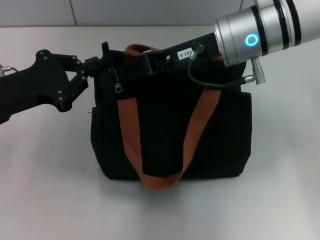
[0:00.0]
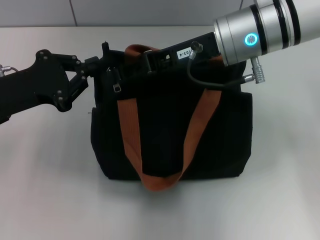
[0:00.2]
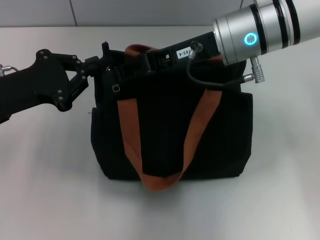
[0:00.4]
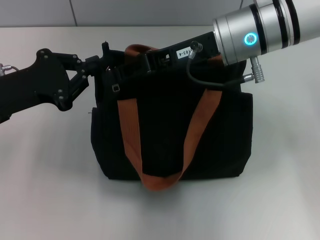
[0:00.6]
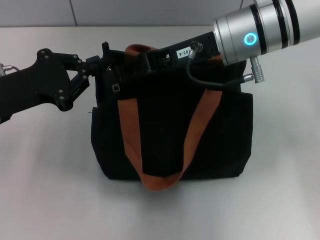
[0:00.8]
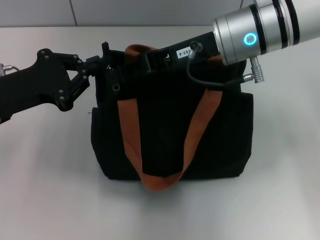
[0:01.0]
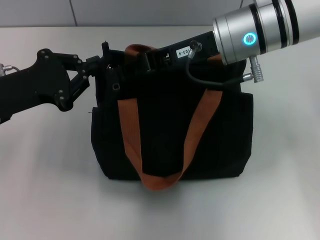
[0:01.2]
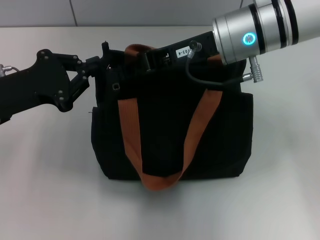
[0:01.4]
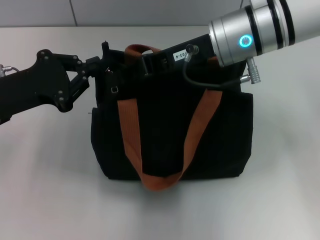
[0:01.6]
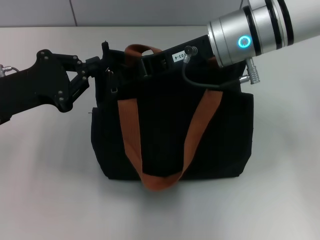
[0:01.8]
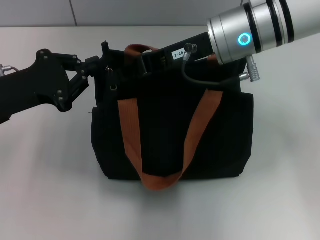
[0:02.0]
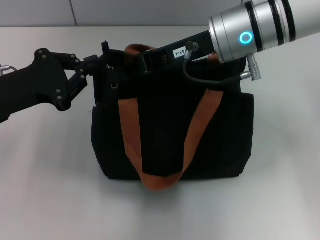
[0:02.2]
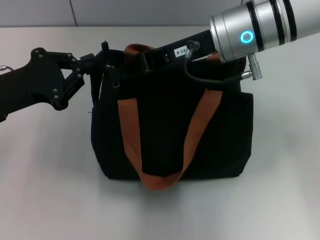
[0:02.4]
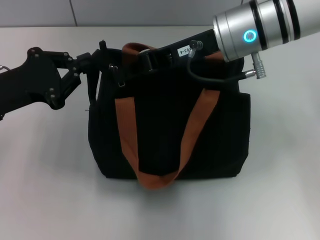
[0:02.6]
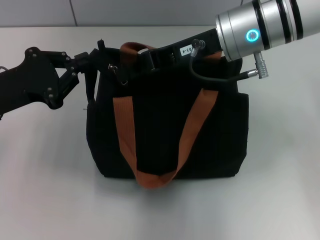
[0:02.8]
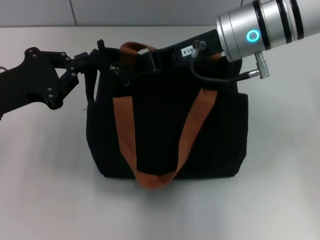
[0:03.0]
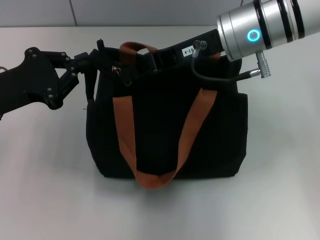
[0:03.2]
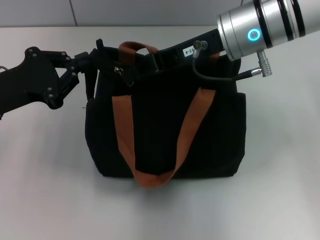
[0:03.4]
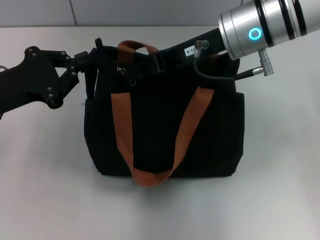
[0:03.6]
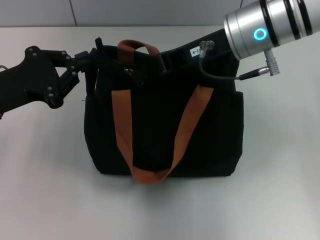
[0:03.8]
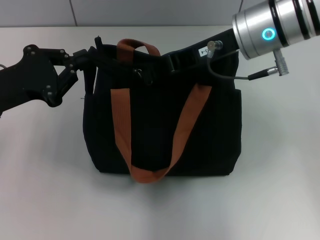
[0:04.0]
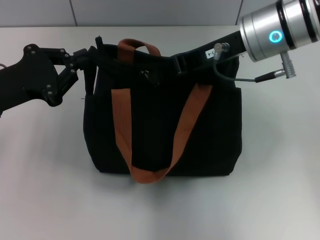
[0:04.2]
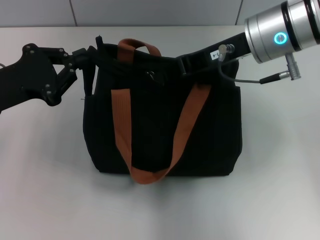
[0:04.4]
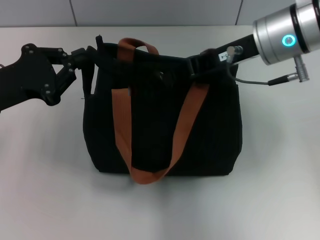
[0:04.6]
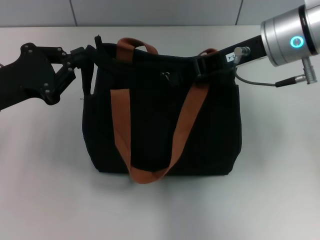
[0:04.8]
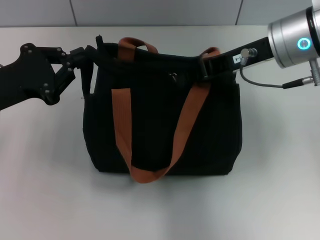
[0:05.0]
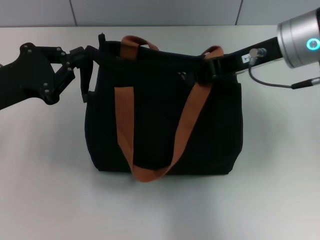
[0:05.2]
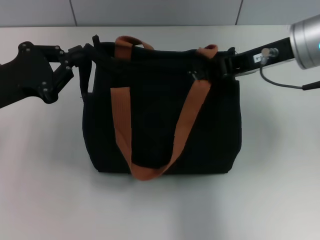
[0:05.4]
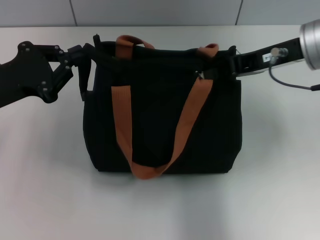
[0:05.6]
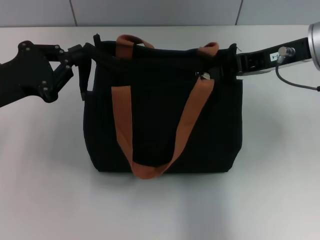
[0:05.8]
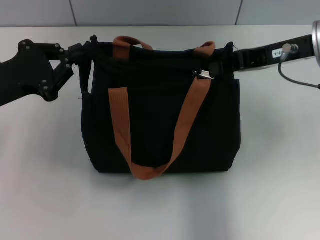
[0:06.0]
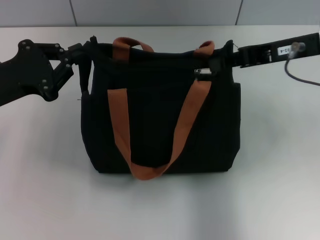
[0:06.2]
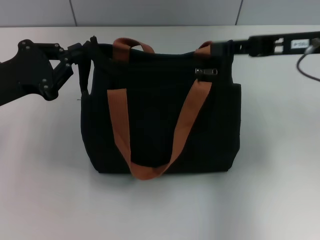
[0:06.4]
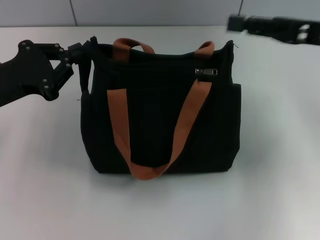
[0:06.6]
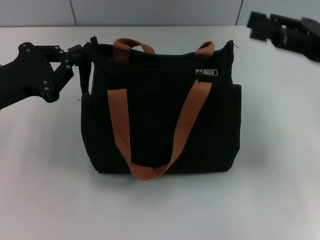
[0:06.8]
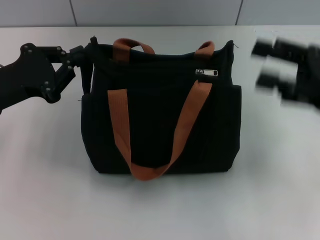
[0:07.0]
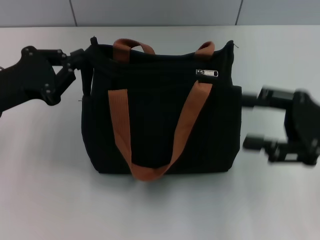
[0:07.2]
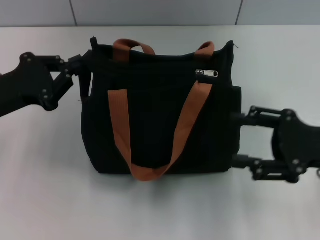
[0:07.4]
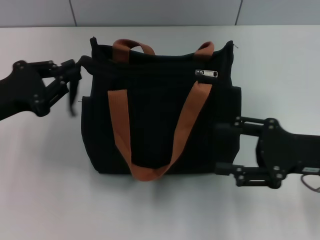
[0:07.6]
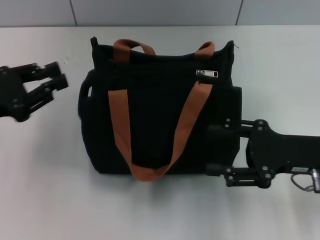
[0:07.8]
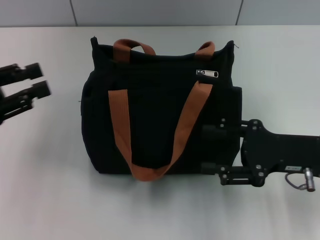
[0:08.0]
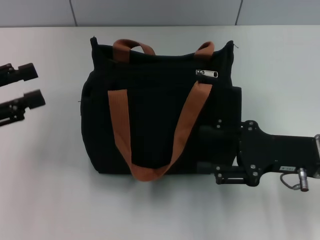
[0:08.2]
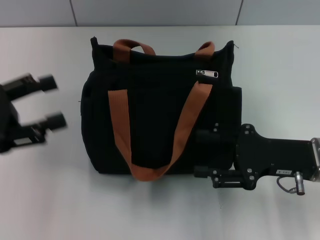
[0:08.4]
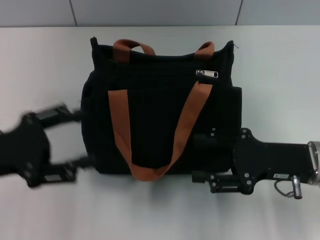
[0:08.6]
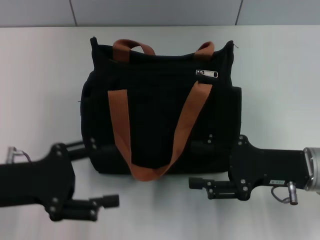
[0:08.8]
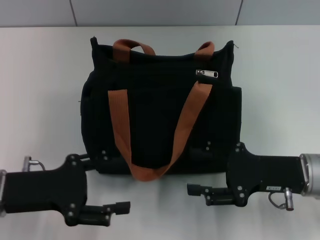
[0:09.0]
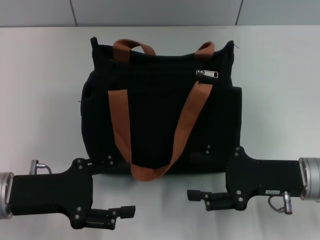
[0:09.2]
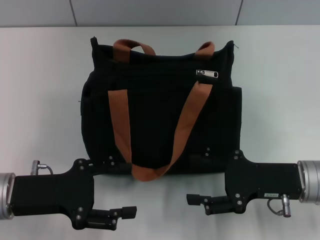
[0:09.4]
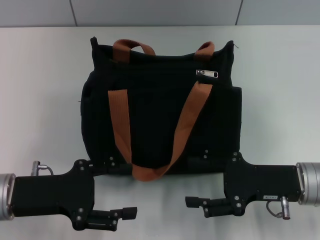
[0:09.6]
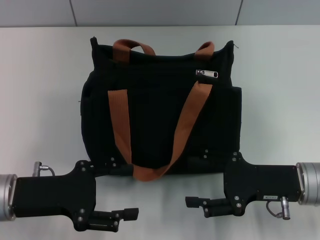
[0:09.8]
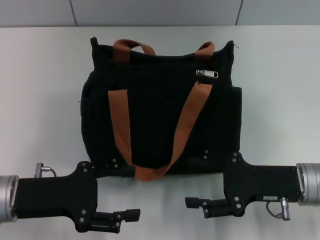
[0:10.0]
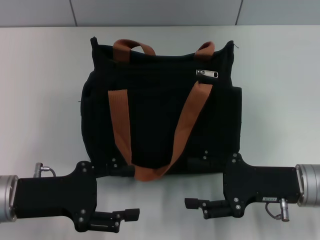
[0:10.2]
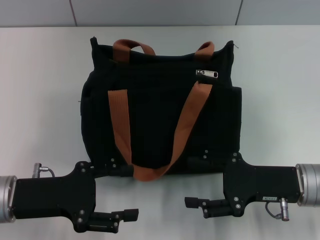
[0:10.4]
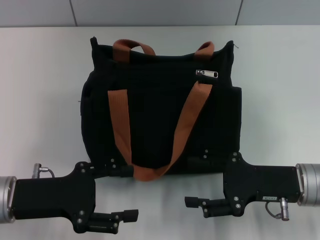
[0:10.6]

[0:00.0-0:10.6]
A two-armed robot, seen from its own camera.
Step, 0:00.0 to 0:06.0: Pull up the zipper with your right hand.
0:00.0 to 0:01.6: The right gripper closes up.
0:01.6 to 0:03.0: Neither gripper changes place.
0:03.0 to 0:04.6: The grippers stay close to where they were, moving slightly.
0:04.6 to 0:06.0: The right gripper is displaced to the right by about 5 cm.
0:06.0 to 0:07.6: The right gripper shifts roughly 15 cm downward and backward, and opens its fingers.
0:07.6 to 0:09.0: The left gripper moves backward, approximately 5 cm, and opens its fingers.
0:09.0 to 0:10.6: The grippers make only small movements.

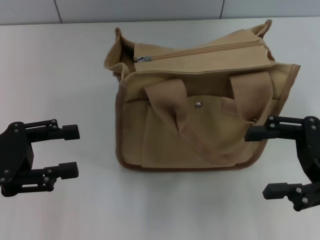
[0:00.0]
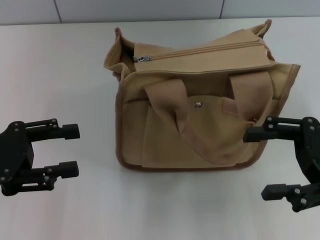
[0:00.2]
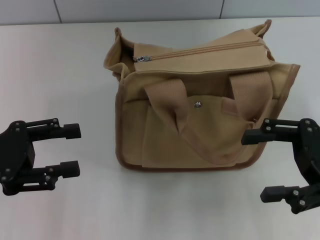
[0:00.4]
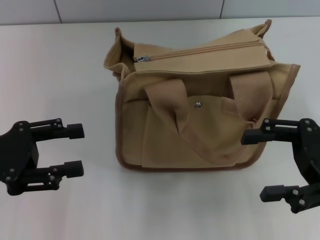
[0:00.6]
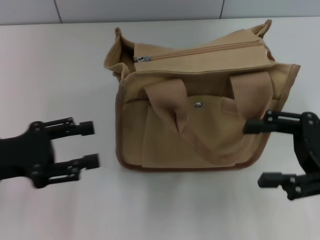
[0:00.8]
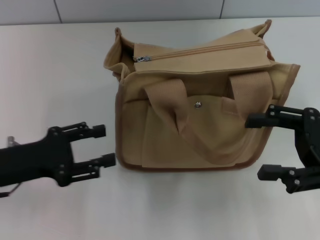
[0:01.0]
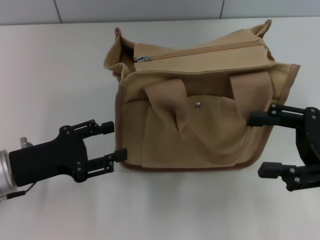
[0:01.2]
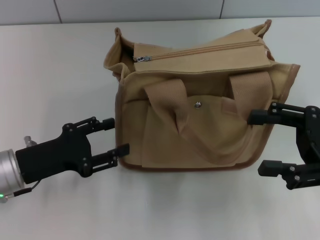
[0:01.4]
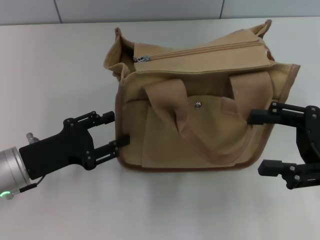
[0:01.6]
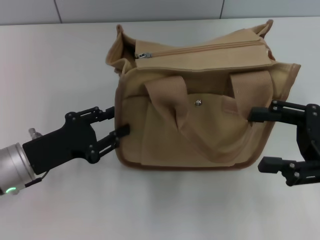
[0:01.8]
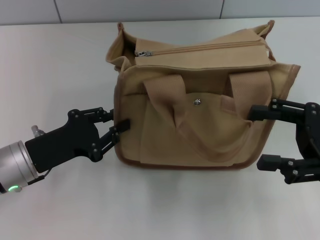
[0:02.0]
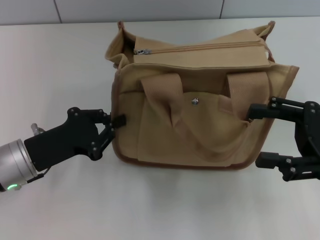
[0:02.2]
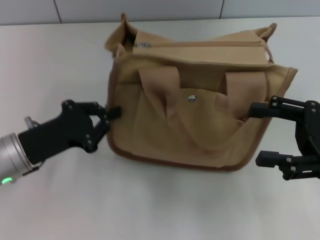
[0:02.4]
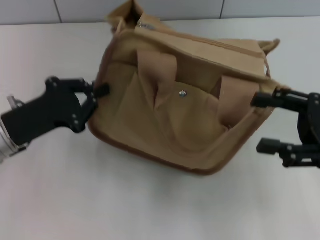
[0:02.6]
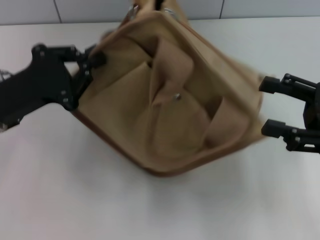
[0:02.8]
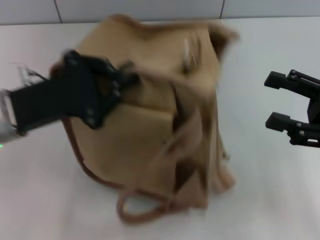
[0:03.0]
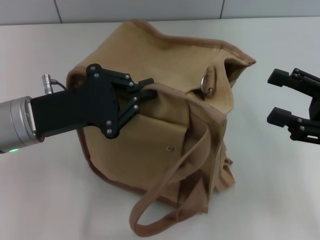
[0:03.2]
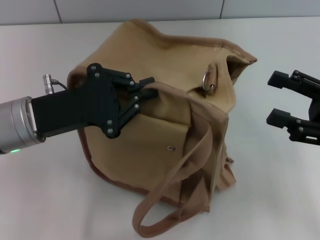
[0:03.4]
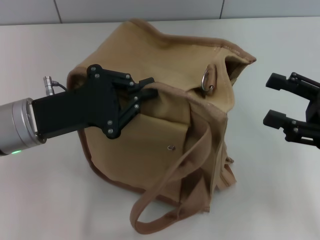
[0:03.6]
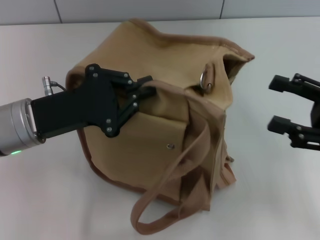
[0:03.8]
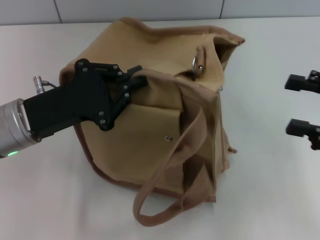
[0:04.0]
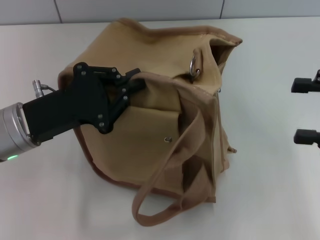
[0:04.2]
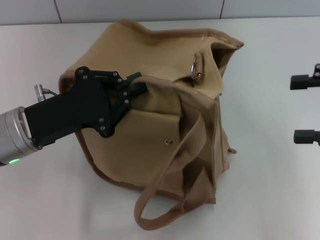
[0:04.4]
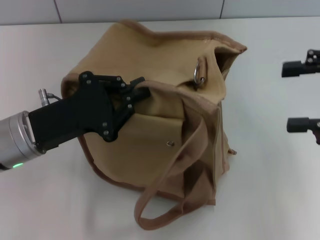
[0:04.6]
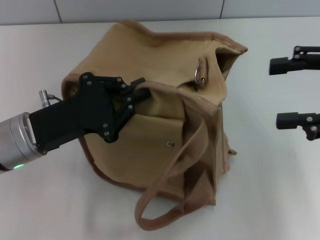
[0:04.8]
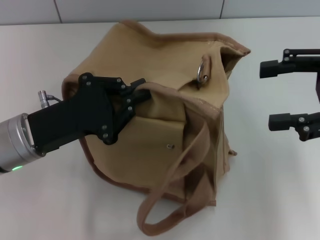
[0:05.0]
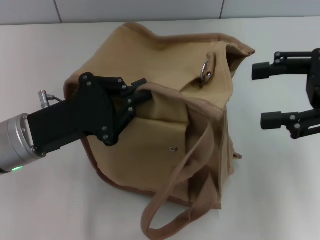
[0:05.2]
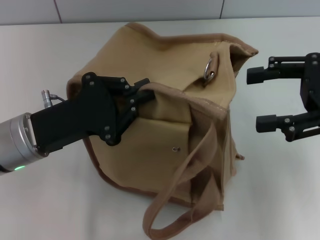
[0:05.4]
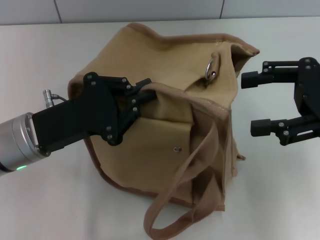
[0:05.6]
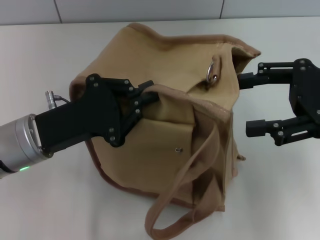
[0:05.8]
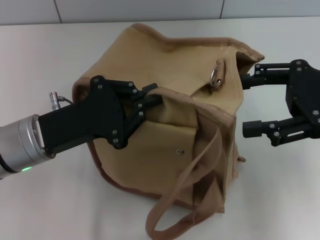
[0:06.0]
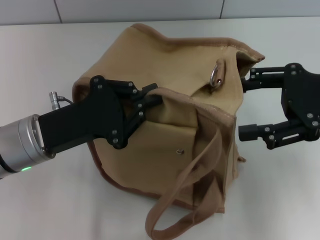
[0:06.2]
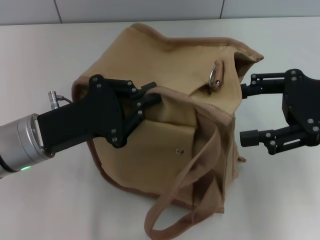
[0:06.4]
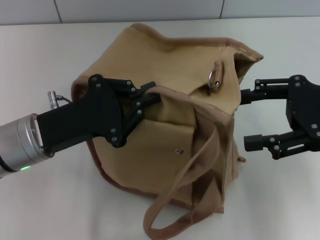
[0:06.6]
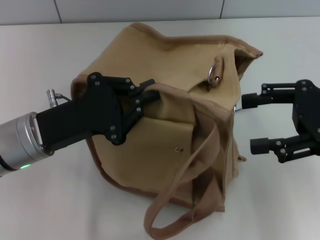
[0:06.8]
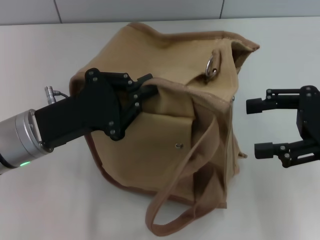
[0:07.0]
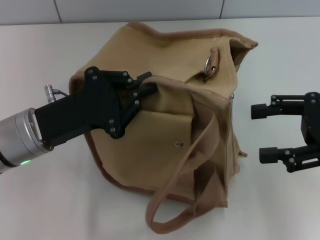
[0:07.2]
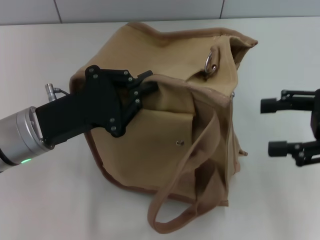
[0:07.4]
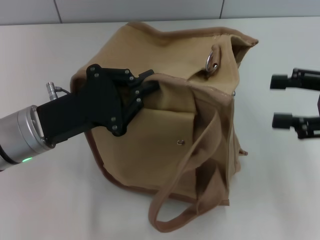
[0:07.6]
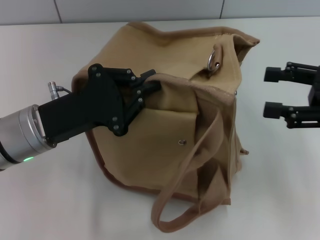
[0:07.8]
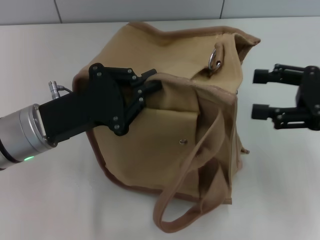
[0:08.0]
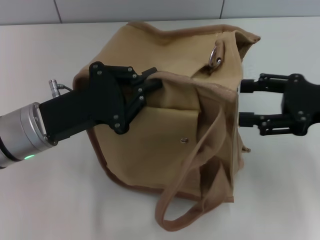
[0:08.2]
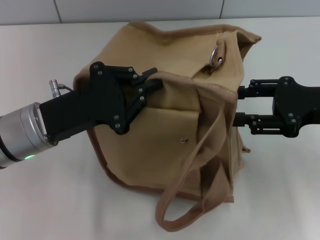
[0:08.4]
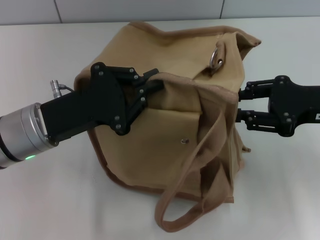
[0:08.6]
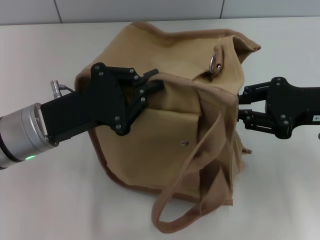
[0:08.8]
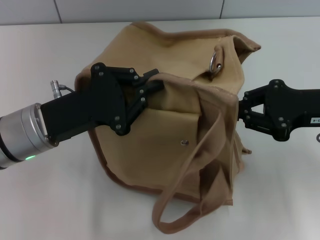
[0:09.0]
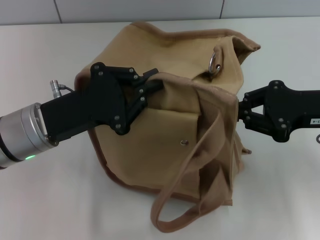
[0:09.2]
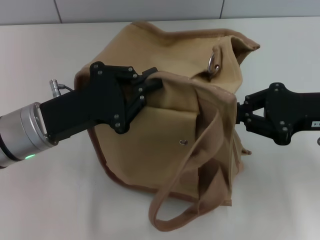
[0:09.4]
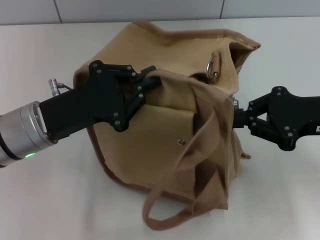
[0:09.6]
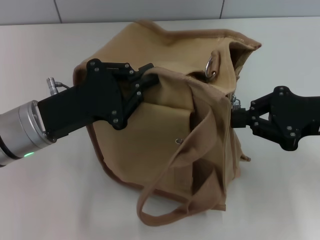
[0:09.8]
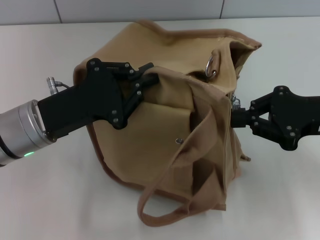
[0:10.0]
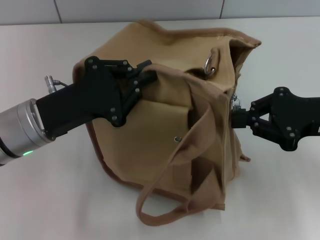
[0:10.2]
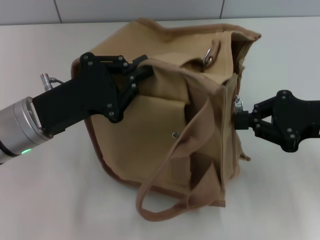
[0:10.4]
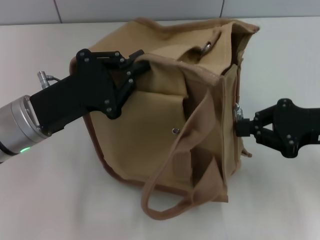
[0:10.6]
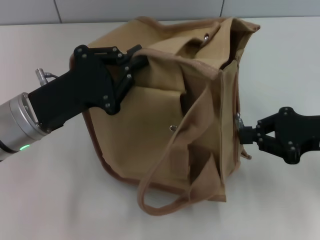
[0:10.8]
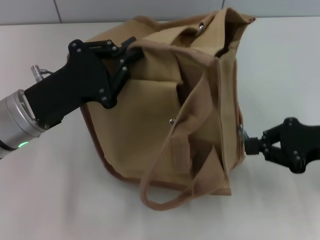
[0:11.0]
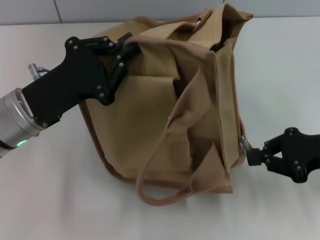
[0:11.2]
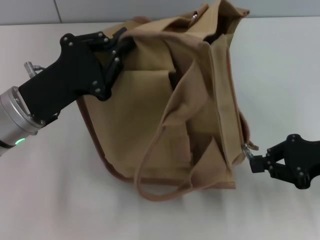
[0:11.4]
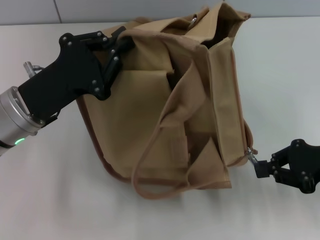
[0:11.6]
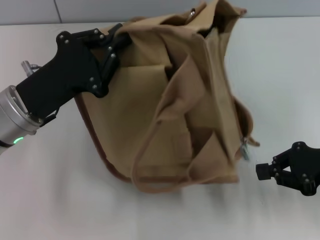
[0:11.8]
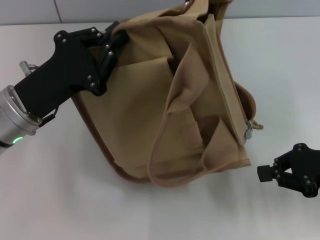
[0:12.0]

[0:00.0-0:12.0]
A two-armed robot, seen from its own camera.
0:00.0 to 0:01.6: The left gripper goes roughly 10 cm downward and to the right.
0:01.6 to 0:03.0: The left gripper is displaced upward by roughly 10 cm, and closes its fingers.
0:03.0 to 0:04.4: The right gripper shifts roughly 10 cm upward.
0:04.4 to 0:06.0: The right gripper changes place by approximately 5 cm.
0:06.0 to 0:07.6: The right gripper shifts by approximately 5 cm.
0:07.6 to 0:09.0: The right gripper ends up roughly 5 cm from where it was, and closes its fingers.
0:10.4 to 0:12.0: The right gripper moves about 5 cm.
